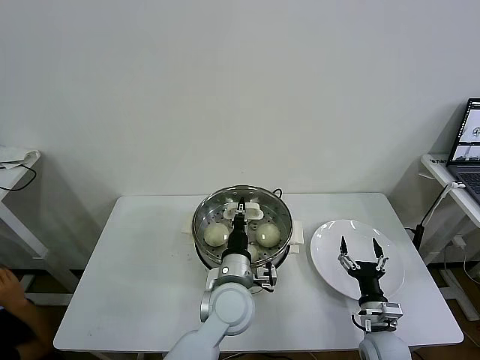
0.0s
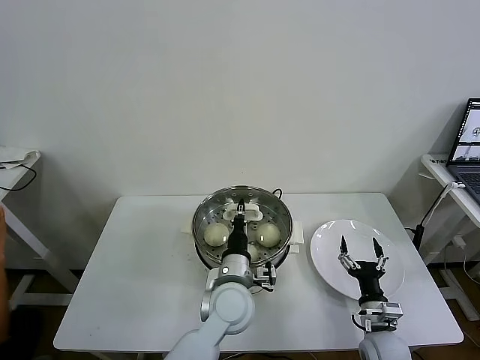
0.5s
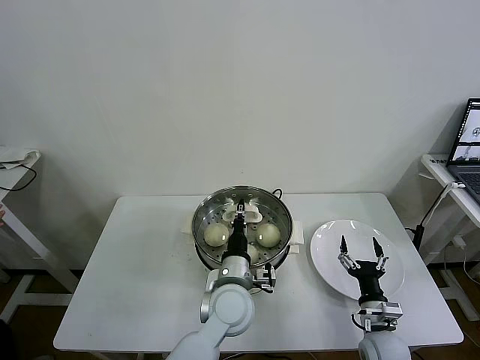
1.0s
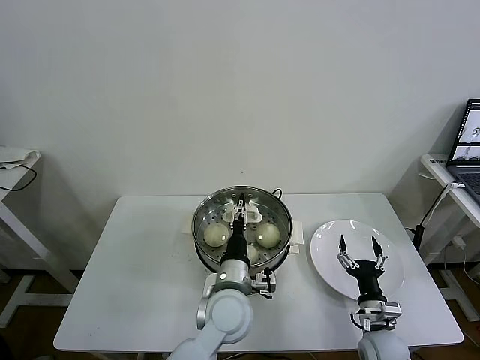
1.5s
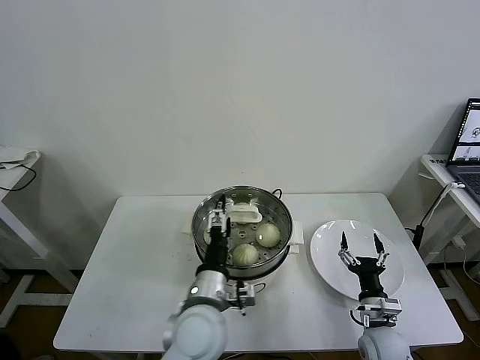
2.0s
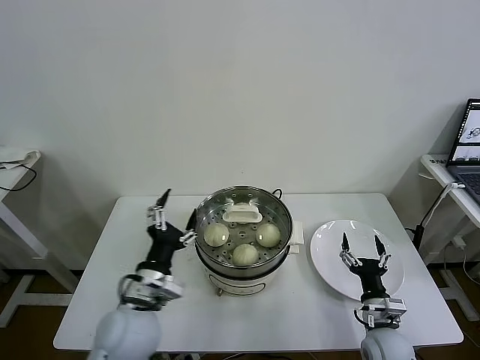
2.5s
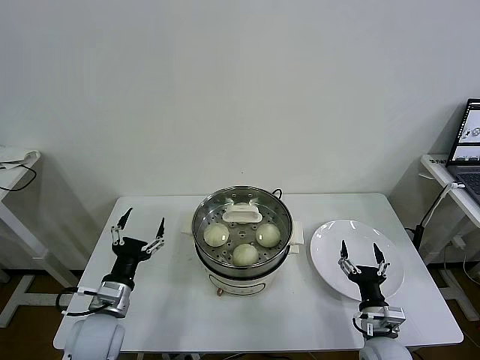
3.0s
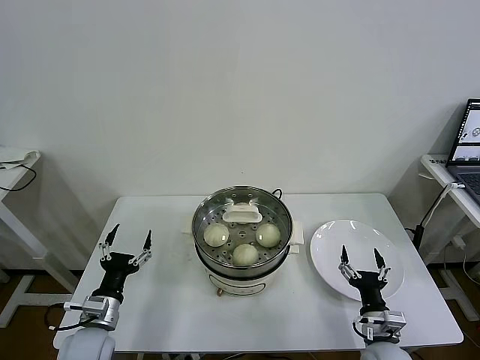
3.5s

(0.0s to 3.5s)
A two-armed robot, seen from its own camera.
Task of the whole recording: take steamed baozi put them in steamer then cover it.
0.0s - 2.0s: The left gripper shifts by roughly 5 cm, and opens its fingers.
2.0s - 3.5s: The left gripper goes approximately 25 cm to the left.

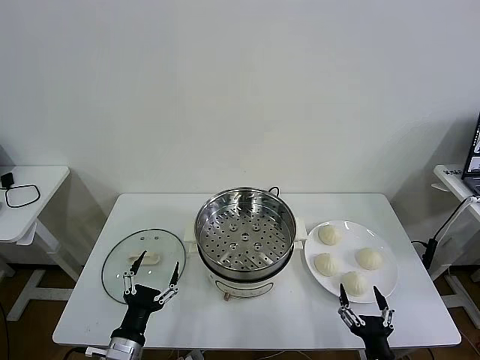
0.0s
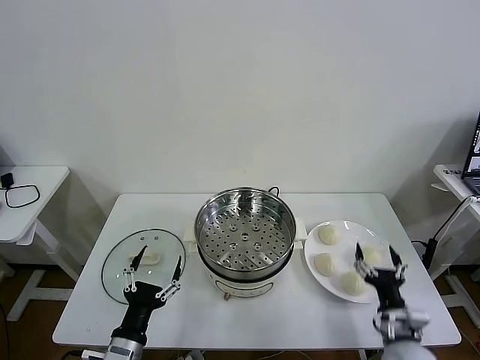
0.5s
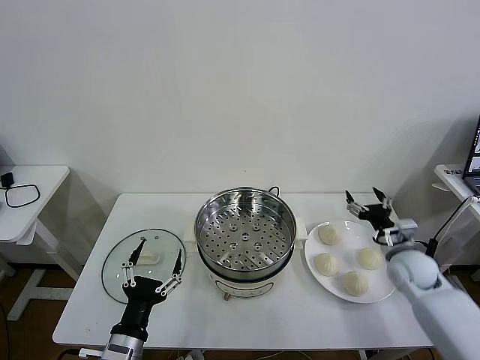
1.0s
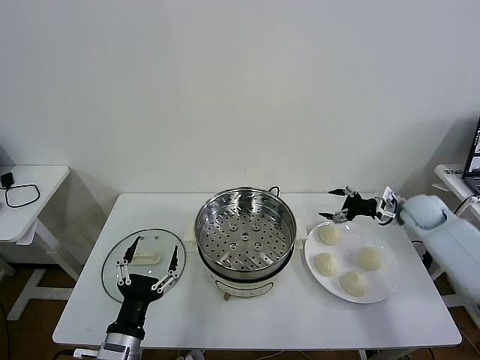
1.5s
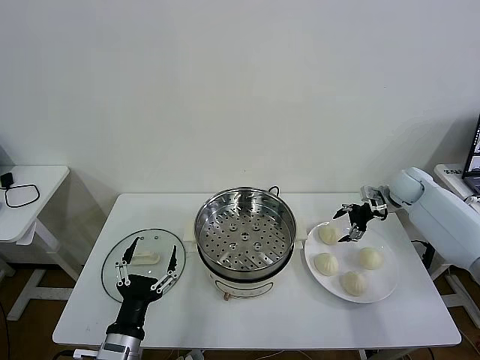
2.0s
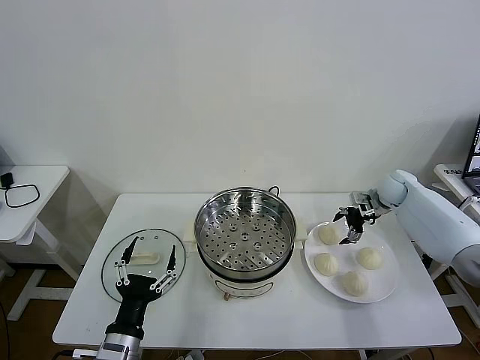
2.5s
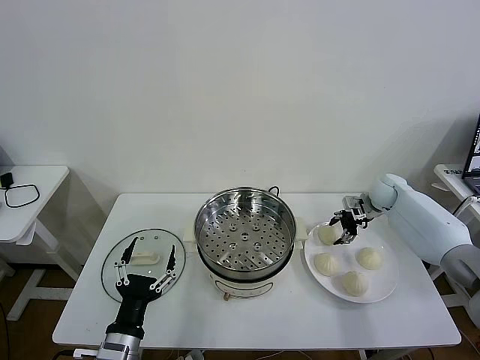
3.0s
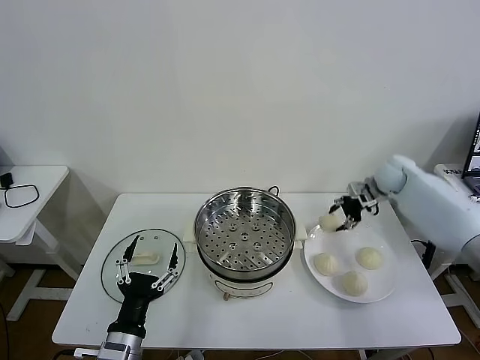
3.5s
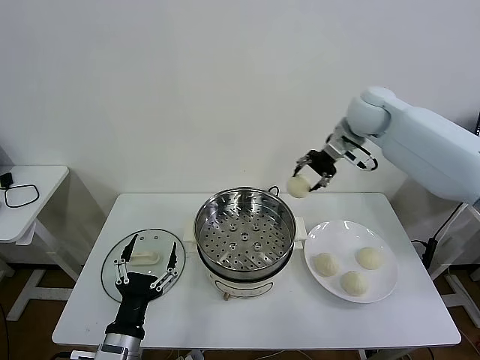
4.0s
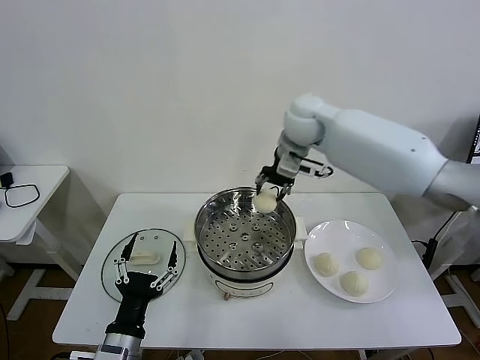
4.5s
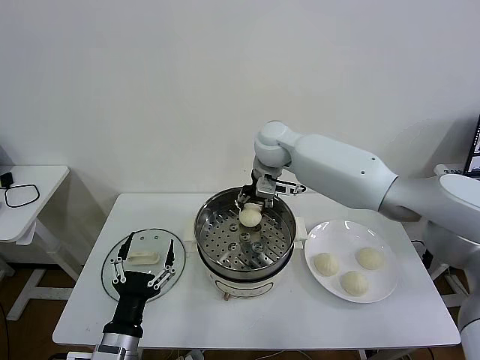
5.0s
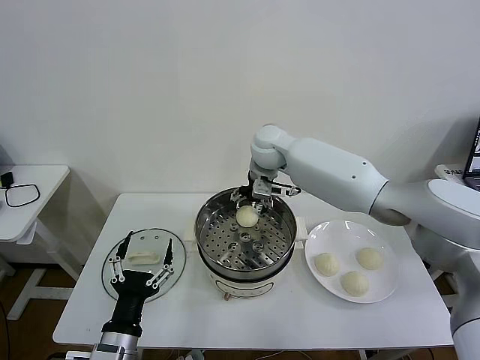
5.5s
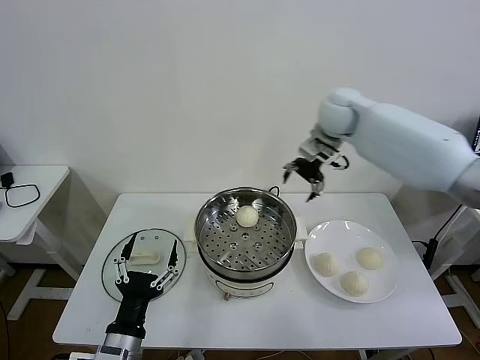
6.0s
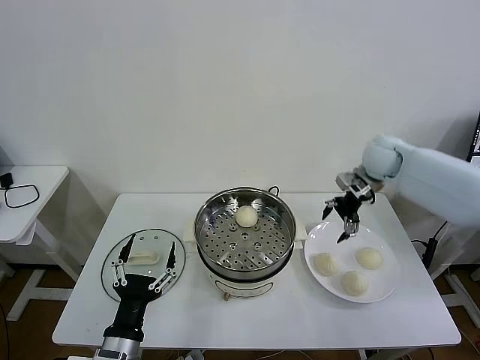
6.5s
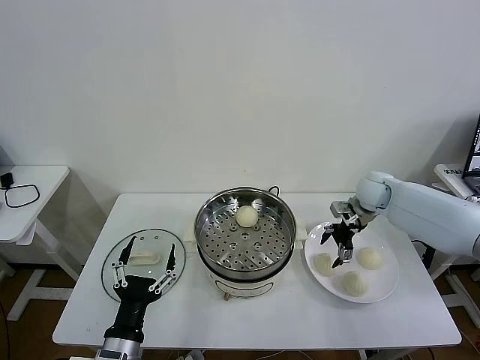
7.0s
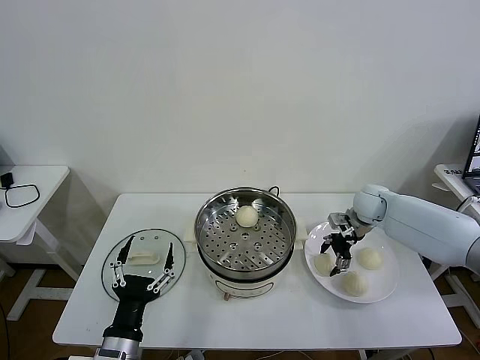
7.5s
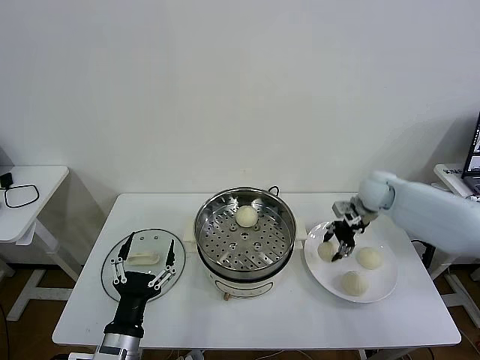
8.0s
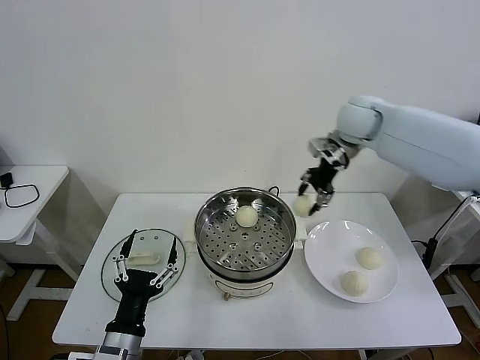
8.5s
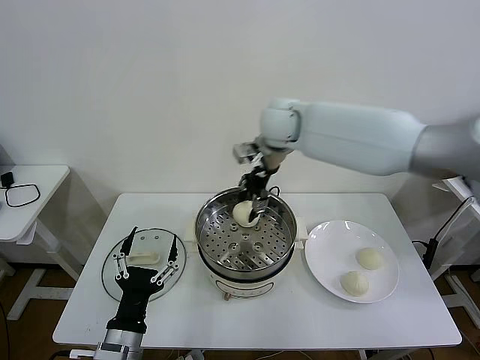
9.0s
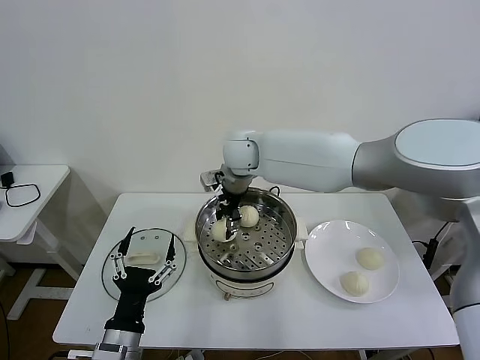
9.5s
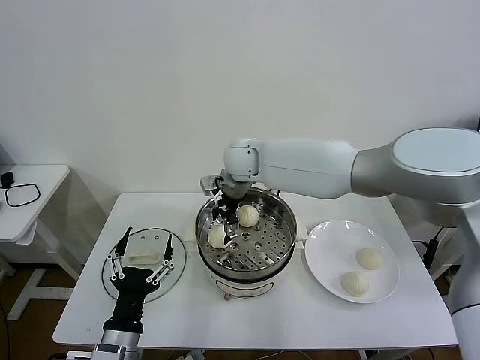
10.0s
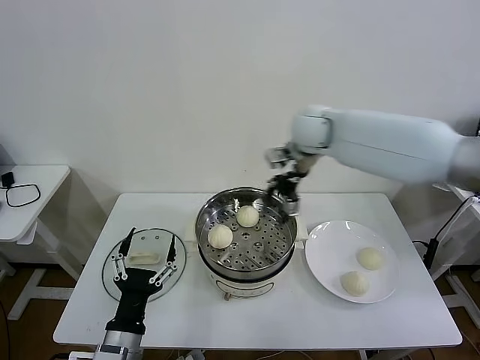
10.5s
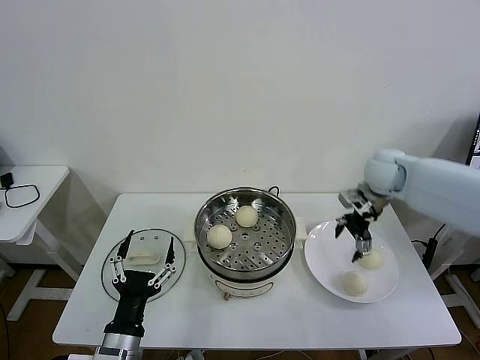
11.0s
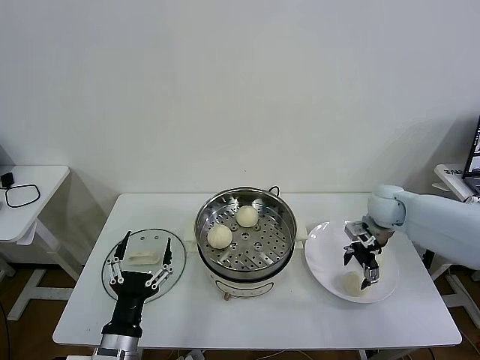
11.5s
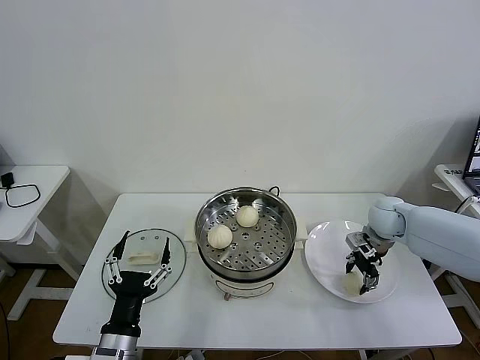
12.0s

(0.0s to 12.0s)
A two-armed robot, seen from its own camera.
Task of the whole recording: take steamed baozi put them in steamer then cover it.
Step, 0.0s - 3.0s: Grasp the baozi in the plate with right gripper.
Step, 3.5s - 5.5s: Place the baozi on the steamer with right gripper.
Step, 6.0s - 7.5s: Grasp the baozi in the plate with right gripper.
Step, 8.0s - 10.0s: Place the baozi on the steamer with right gripper.
2.0s - 4.0s: The right gripper moves upward and to the left, some 30 cm, and closes up.
4.0s - 6.0s: The right gripper travels to the left and back again, about 15 cm each way, and opens up.
6.0s - 8.0s: The right gripper shifts some 15 cm downward and to the right, and closes its fingers.
8.0s - 10.0s: The right gripper heads to the left, covering some 35 cm, and opens.
10.0s - 12.0s: The right gripper heads to the right and downward, covering roughly 40 cm, and closes.

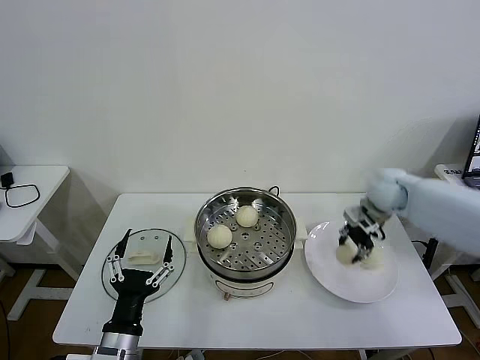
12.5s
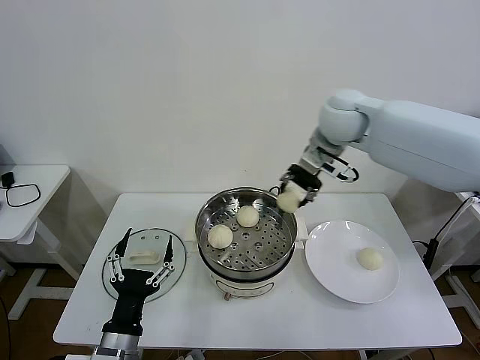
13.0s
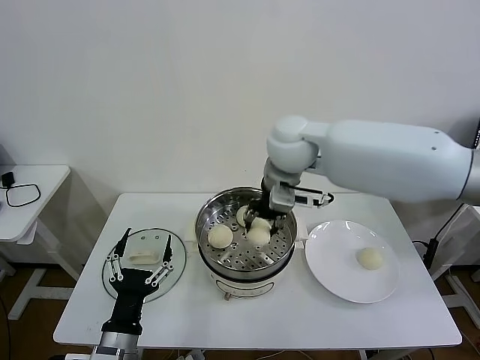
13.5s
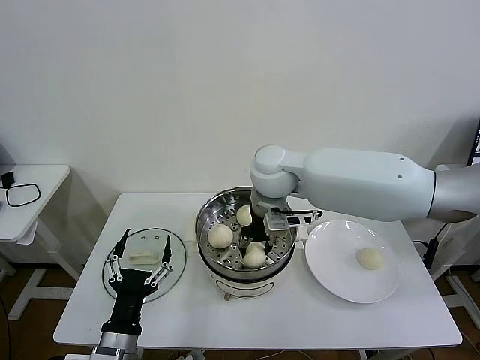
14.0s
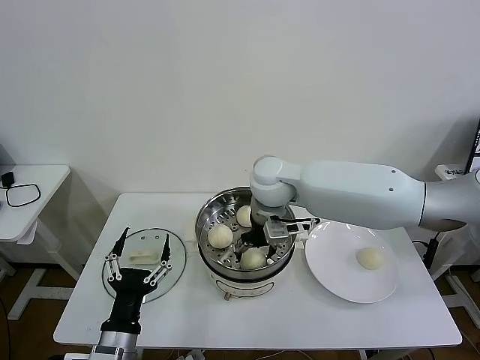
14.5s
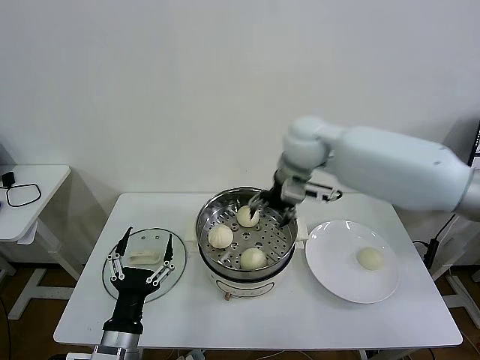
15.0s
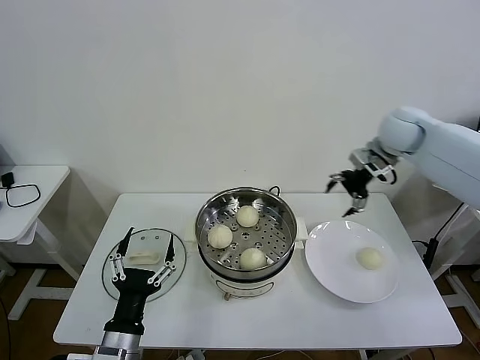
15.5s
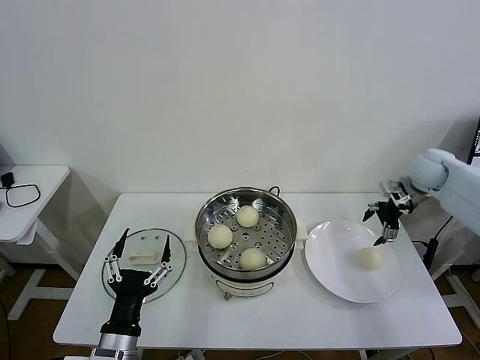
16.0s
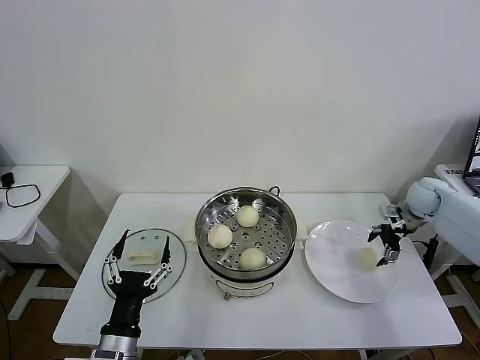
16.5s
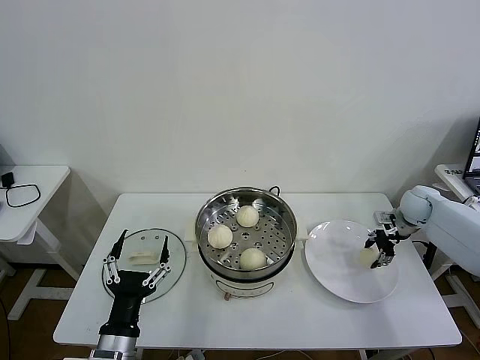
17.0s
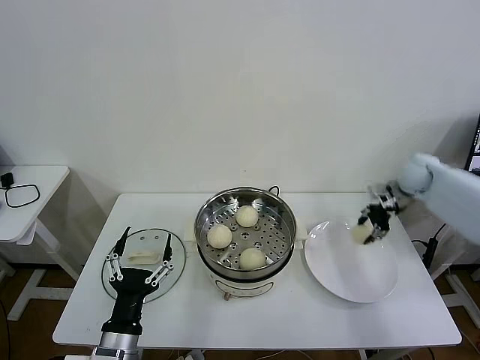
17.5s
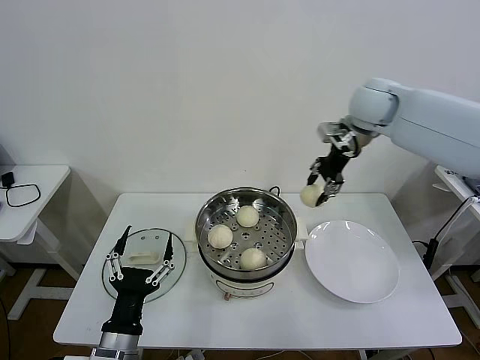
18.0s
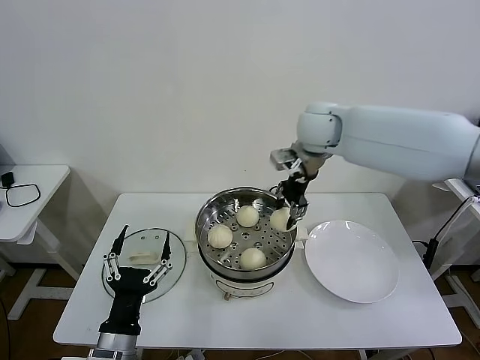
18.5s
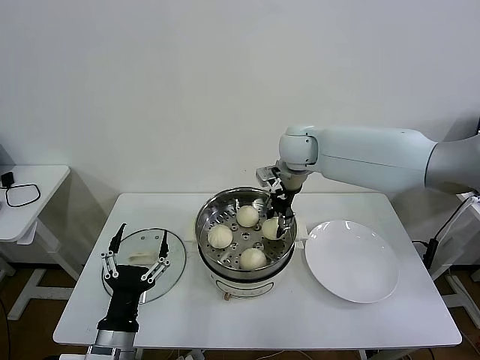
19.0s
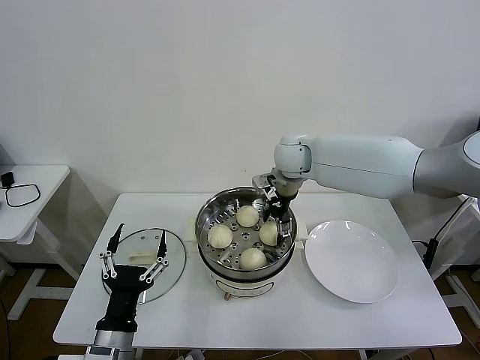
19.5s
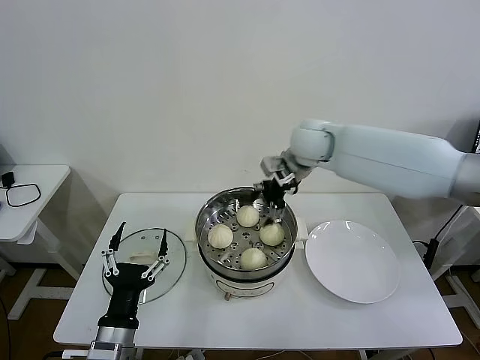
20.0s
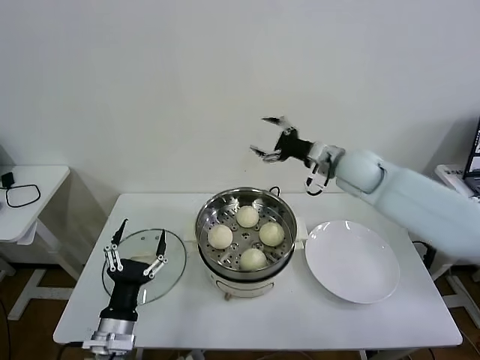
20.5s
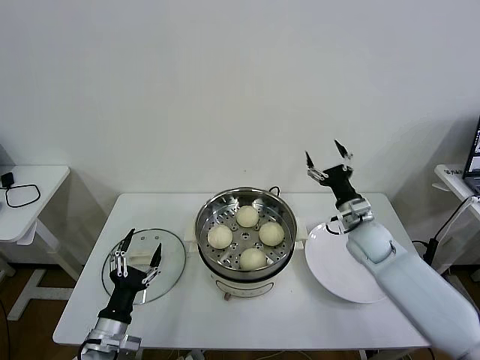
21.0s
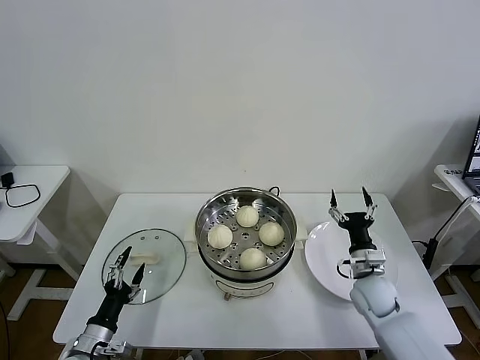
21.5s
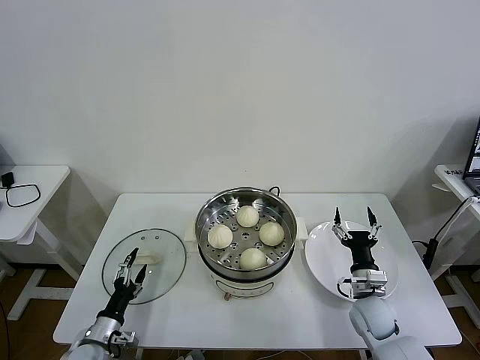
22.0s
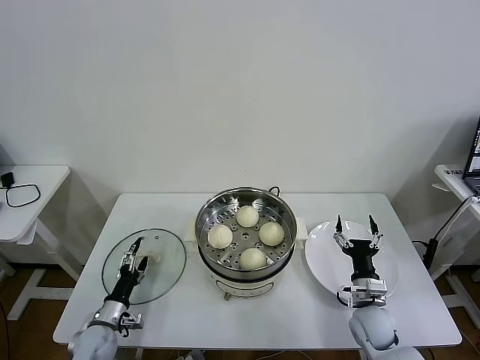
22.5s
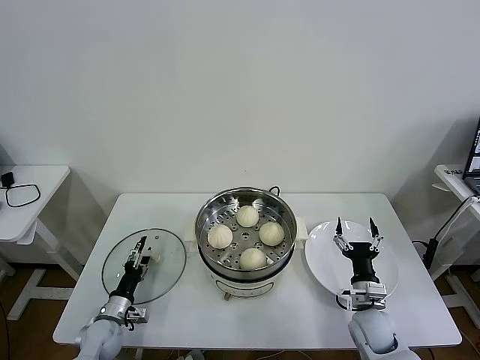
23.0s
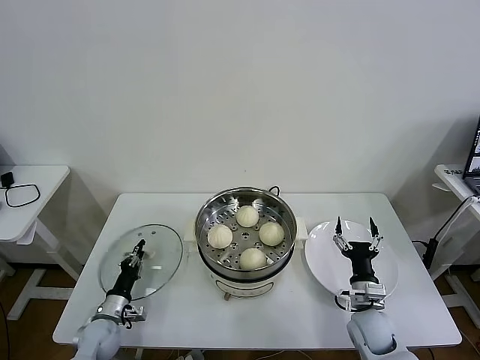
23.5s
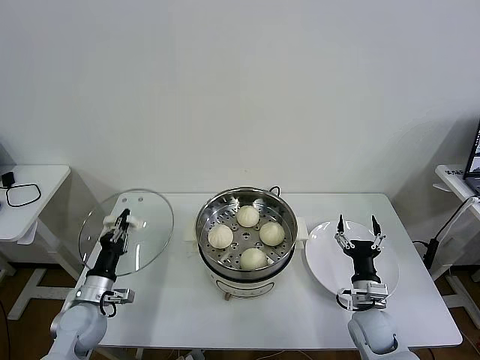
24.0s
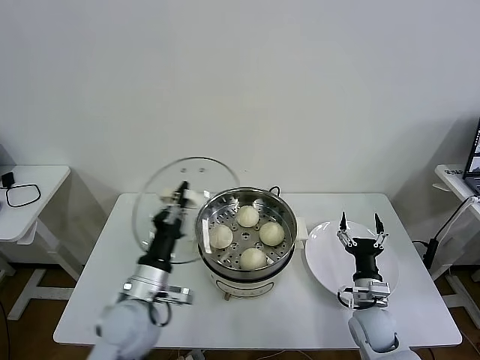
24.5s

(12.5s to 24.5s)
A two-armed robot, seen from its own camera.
Task of the whole recording: take steamed baozi put them in steamer then cover it.
Step, 12.5s - 14.5s: Place the baozi on the steamer with right gripper.
Step, 15.0s - 17.0s: Grasp the baozi in the plate with right gripper.
Step, 17.5s - 19.5s: Place the baozi on the steamer with right gripper.
Step, 20.0s - 23.5s: Grasp the pot lid with left gripper.
12.5s - 14.5s: The right gripper is displaced to the left by roughly 25 cm, and opens.
14.5s - 16.5s: The right gripper travels to the right by approximately 40 cm.
16.5s - 18.5s: The right gripper moves to the left and upward, approximately 35 cm, and closes up.
18.5s - 20.5s: The right gripper goes approximately 15 cm to the right and downward, and opens.
20.5s - 22.5s: The left gripper shifts about 20 cm downward, to the left and forward, while the right gripper heads downward and backward, covering about 35 cm.
22.5s - 24.5s: The left gripper moves upward and to the right, roughly 25 cm, and closes.
